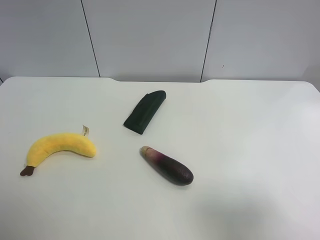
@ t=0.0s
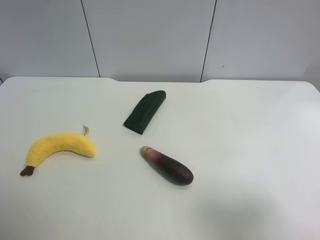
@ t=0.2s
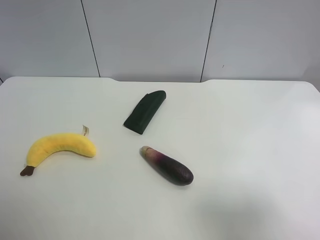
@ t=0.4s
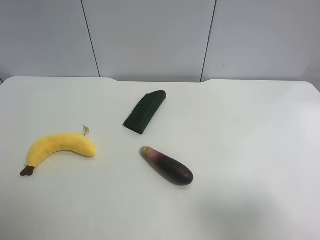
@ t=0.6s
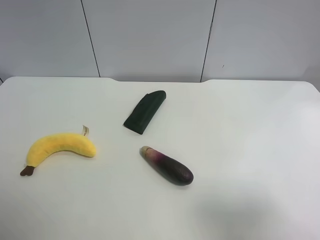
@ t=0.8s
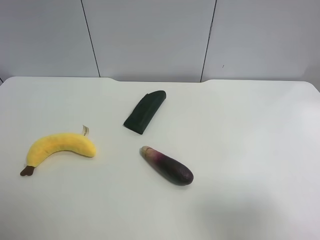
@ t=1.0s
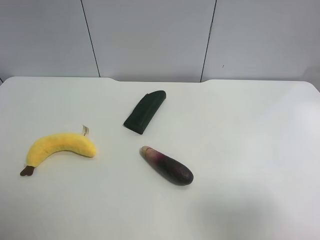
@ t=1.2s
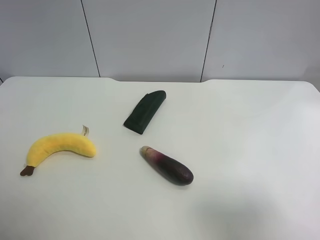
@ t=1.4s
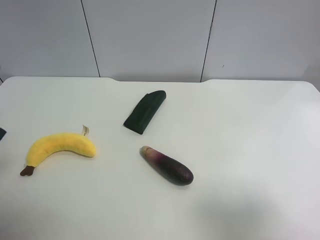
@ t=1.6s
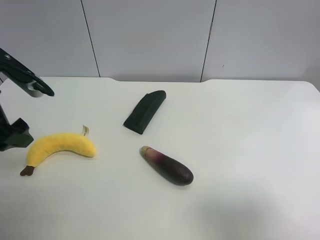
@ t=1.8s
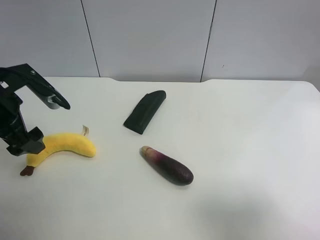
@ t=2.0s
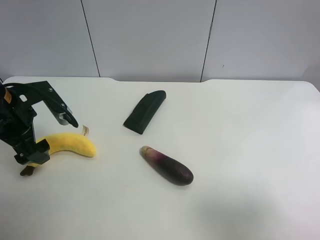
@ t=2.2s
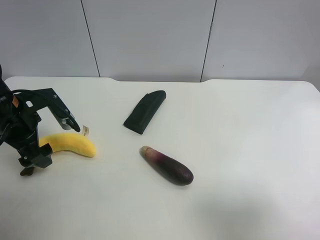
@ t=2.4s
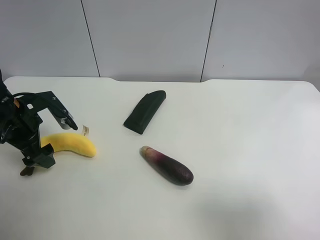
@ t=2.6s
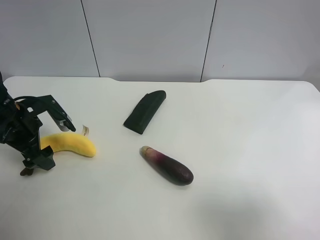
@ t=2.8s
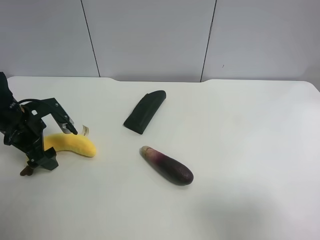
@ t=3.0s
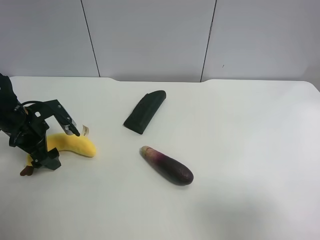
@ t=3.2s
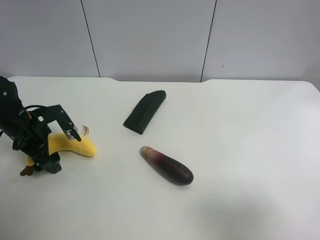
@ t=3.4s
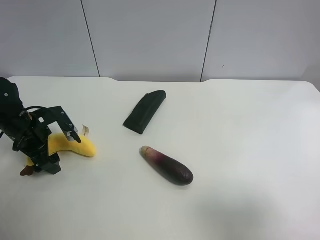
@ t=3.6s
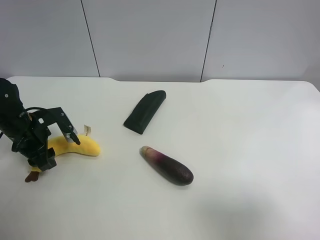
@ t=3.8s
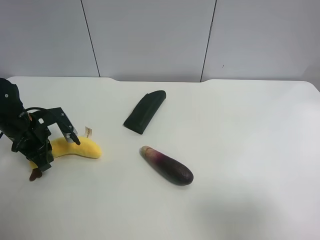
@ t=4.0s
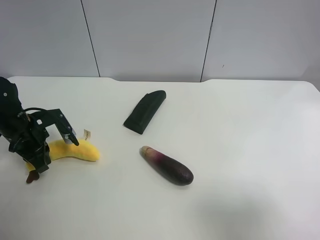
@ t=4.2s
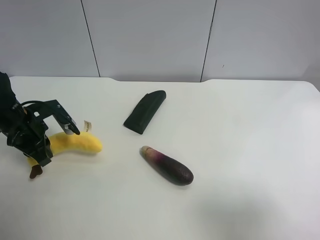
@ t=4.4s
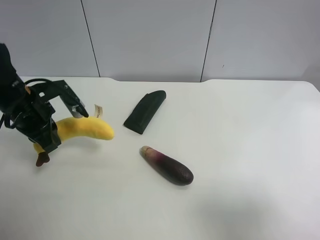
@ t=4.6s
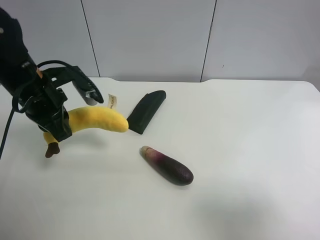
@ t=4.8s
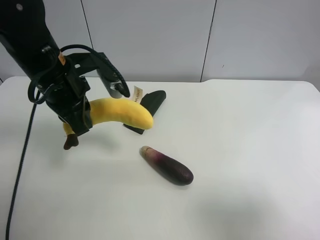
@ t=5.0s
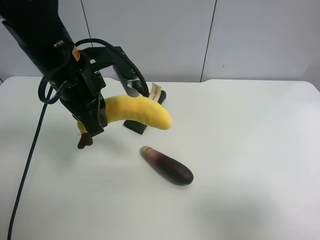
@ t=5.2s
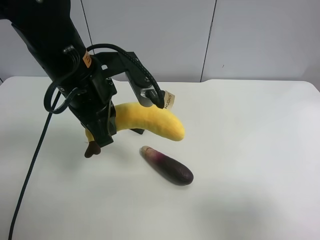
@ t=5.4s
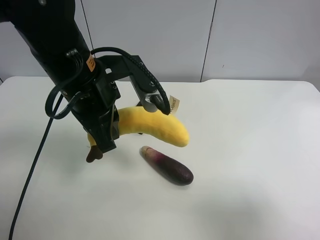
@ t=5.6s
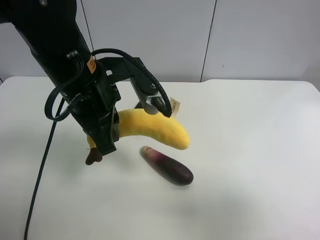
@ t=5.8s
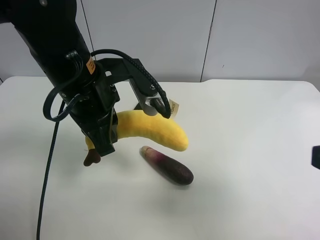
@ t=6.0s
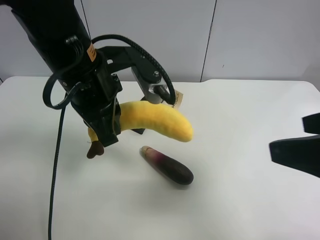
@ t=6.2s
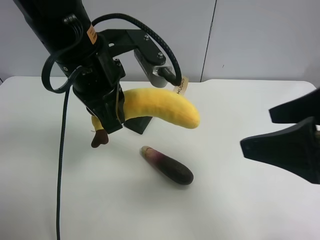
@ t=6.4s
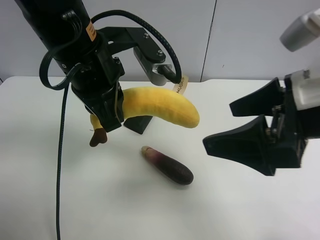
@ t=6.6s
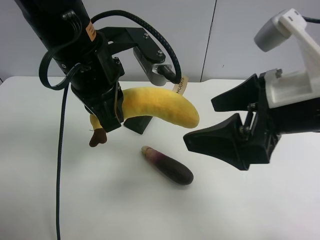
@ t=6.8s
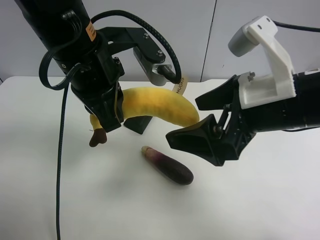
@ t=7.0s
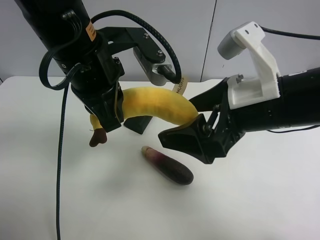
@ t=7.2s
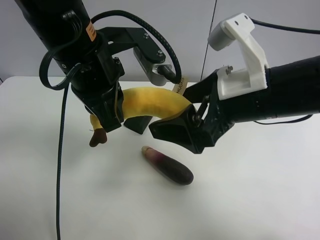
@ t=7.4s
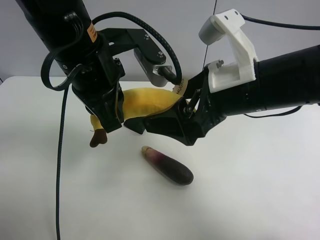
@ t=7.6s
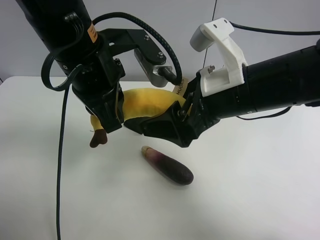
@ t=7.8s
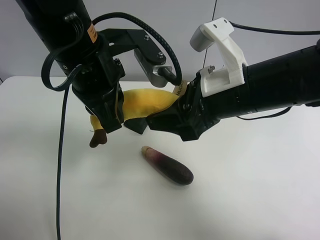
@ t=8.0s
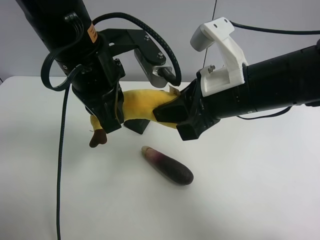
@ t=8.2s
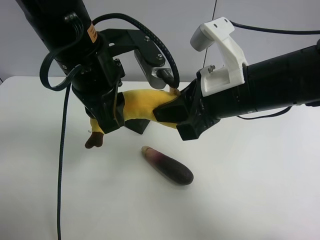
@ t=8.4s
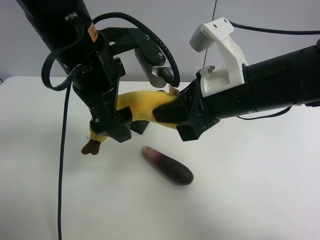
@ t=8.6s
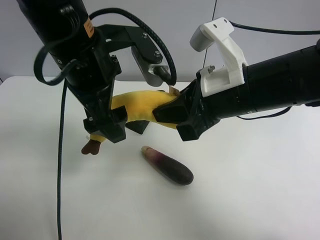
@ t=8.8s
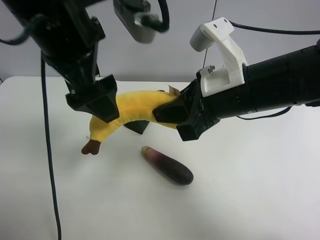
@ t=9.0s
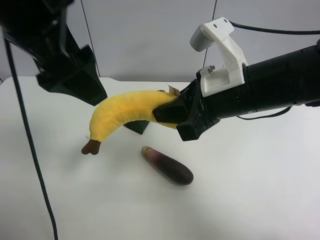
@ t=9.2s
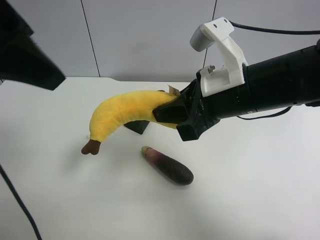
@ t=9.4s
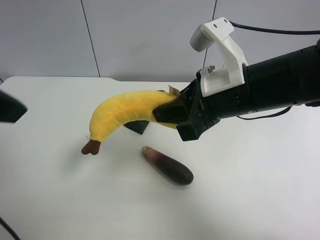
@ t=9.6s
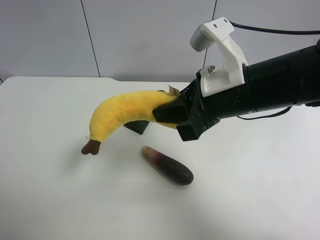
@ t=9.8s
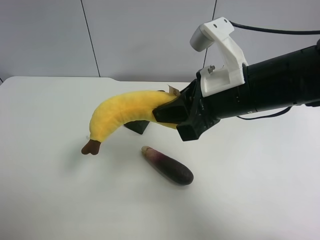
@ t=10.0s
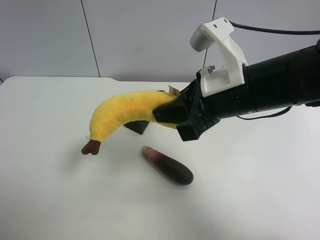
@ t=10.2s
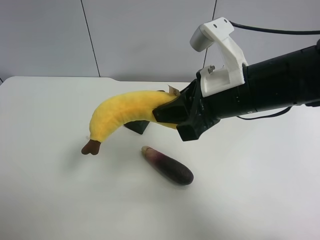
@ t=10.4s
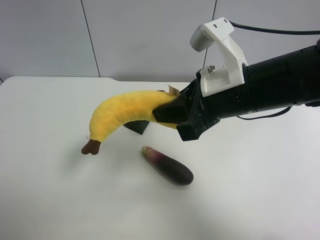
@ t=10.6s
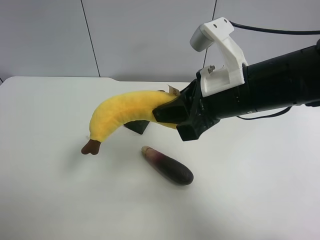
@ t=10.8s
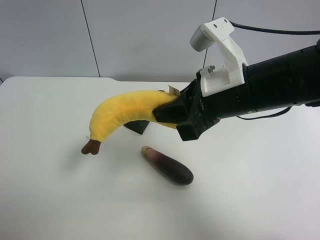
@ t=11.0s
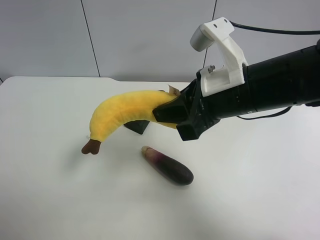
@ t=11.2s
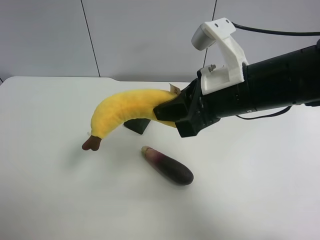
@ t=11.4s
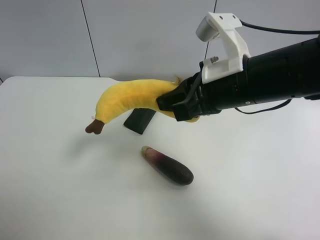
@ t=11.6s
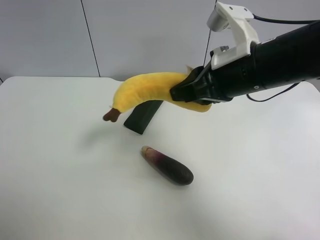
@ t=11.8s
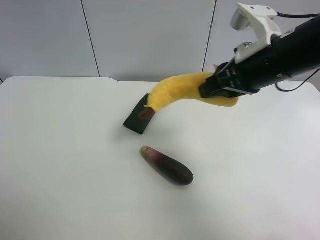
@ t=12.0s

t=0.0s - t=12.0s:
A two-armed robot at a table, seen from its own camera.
Task of the whole recording: use the left gripper to pick up the item and transfer it from the left gripper to the right gripper.
t=1.6s - t=3.0s: The left gripper goes approximately 20 cm downward and forward.
t=3.0s - t=4.4s: The left gripper closes up.
t=4.4s - t=6.0s: The left gripper travels to the right and upward by about 20 cm; the right gripper changes place by approximately 5 cm.
t=6.0s - t=7.6s: The right gripper shifts approximately 20 cm forward and to the left.
t=7.6s - t=9.0s: The left gripper shifts approximately 5 cm upward, and opens its fingers; the right gripper closes.
t=9.0s - t=10.4s: The left gripper is displaced to the left and backward by some 30 cm.
t=10.4s - t=12.0s: The right gripper shifts some 5 cm to the right.

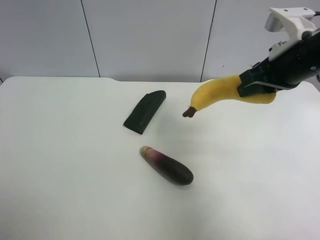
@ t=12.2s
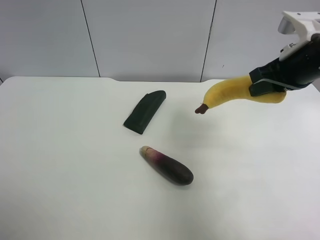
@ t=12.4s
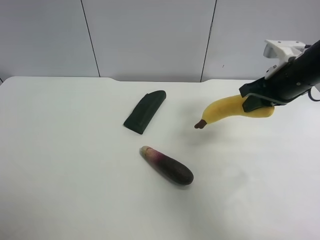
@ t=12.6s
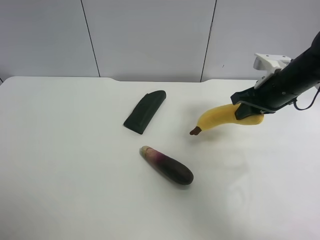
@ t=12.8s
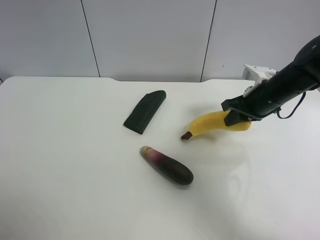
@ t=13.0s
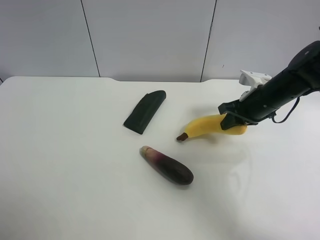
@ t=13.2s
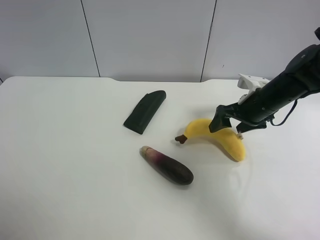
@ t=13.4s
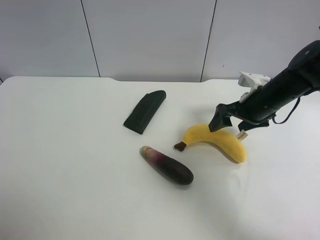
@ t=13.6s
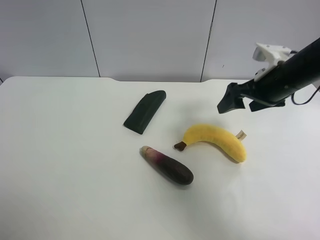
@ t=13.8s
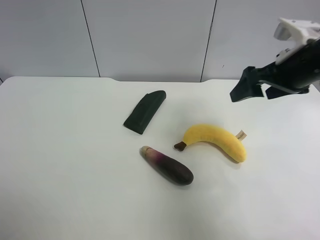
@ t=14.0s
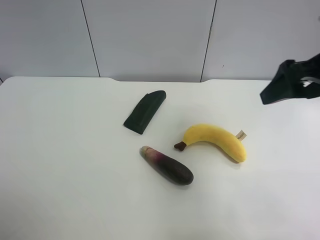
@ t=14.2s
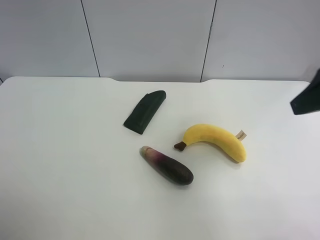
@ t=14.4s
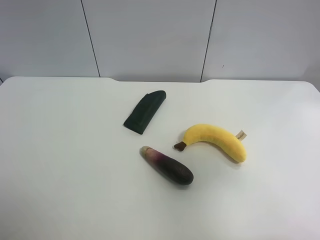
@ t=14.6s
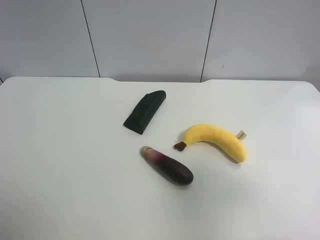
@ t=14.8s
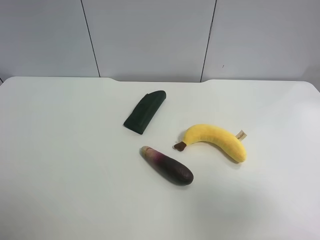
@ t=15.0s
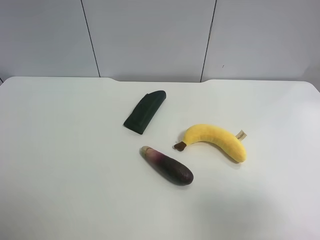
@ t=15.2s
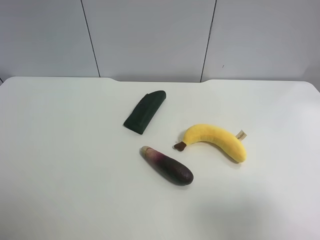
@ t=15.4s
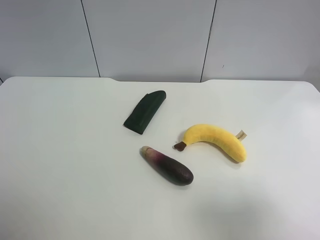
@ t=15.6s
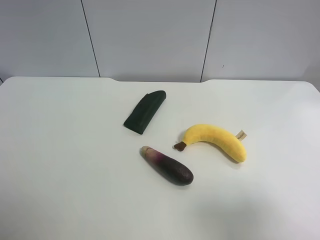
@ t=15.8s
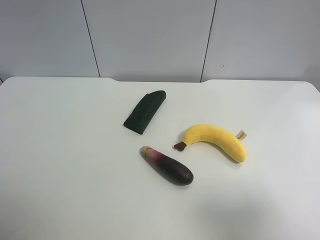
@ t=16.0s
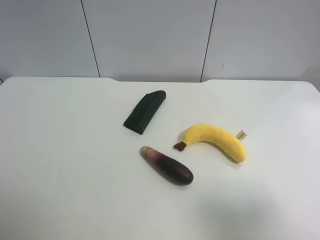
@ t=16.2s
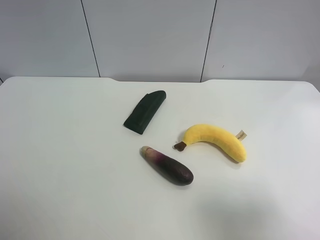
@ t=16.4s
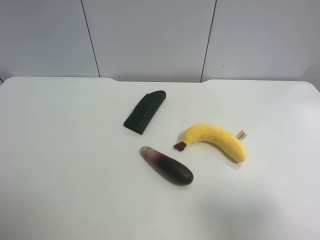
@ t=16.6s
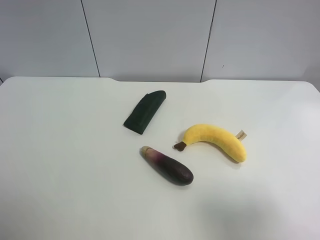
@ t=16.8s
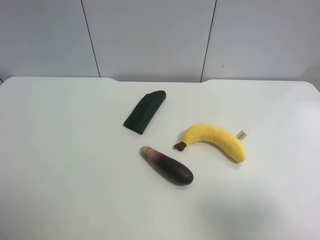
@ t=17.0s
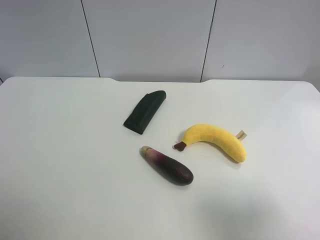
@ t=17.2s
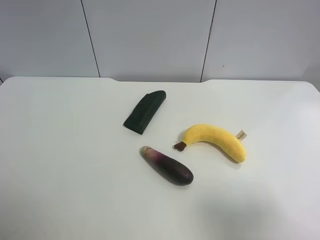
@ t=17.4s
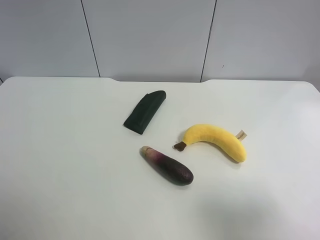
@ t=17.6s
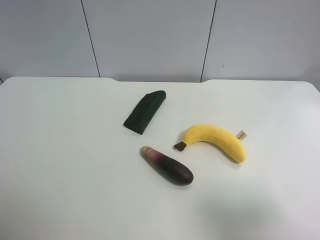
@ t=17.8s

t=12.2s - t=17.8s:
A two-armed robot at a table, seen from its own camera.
Task of the whole recording: use the left gripper to pick up the item and transfer it from the left gripper to the right gripper.
t=12.2s - t=13.6s: The right gripper moves downward and forward, about 15 cm, and opens its fingers.
t=13.6s - t=15.0s: The right gripper goes some 35 cm backward and upward.
t=16.4s - t=17.8s: Neither gripper changes place.
